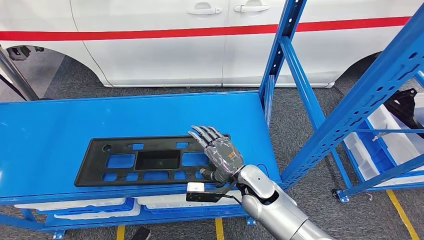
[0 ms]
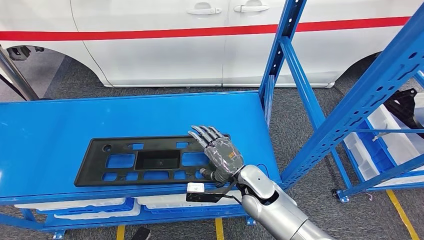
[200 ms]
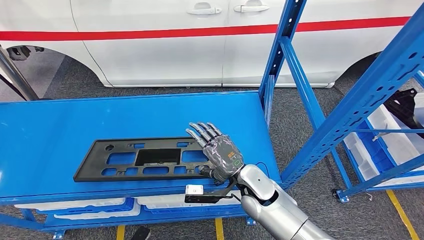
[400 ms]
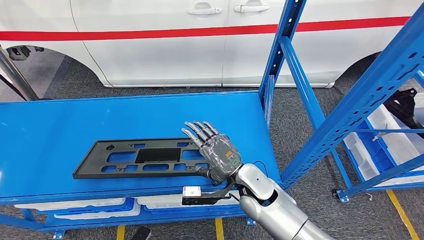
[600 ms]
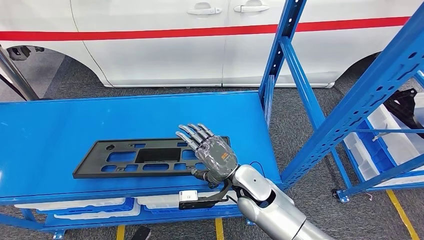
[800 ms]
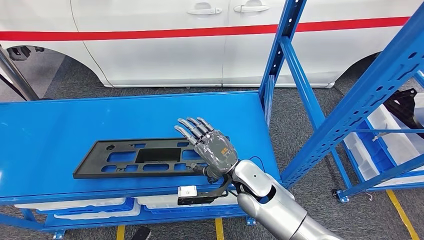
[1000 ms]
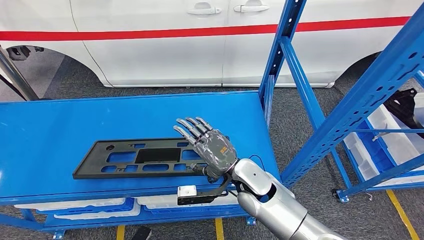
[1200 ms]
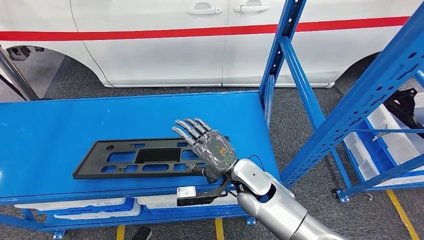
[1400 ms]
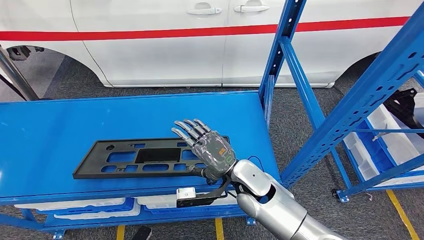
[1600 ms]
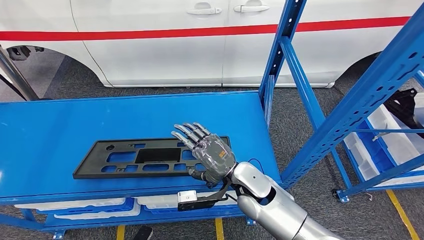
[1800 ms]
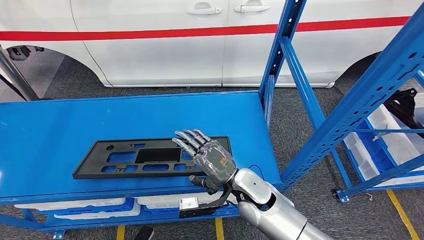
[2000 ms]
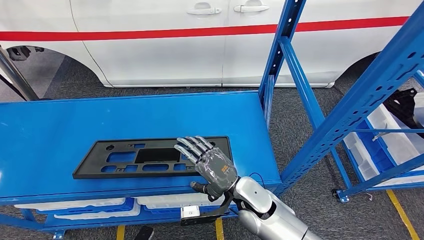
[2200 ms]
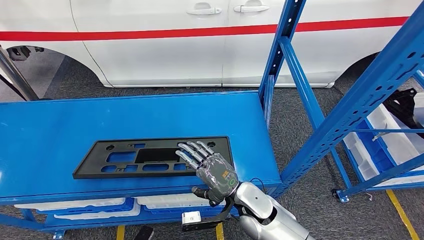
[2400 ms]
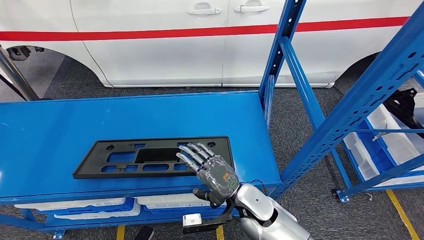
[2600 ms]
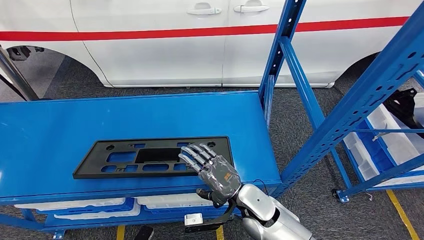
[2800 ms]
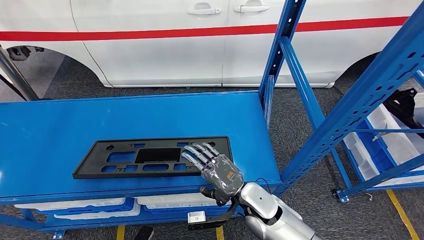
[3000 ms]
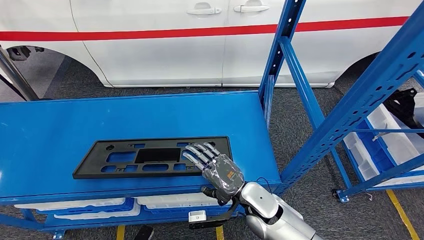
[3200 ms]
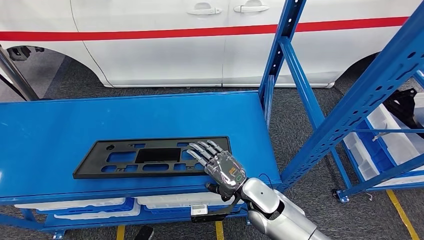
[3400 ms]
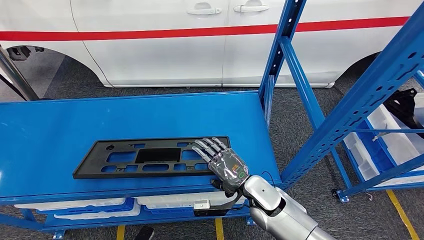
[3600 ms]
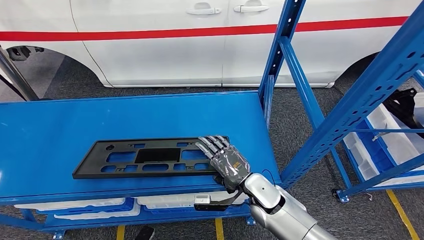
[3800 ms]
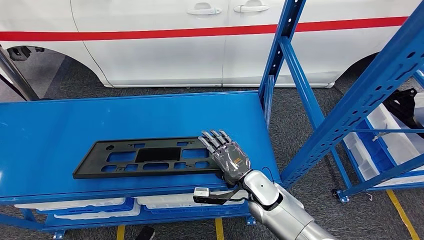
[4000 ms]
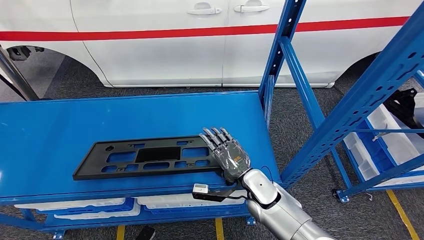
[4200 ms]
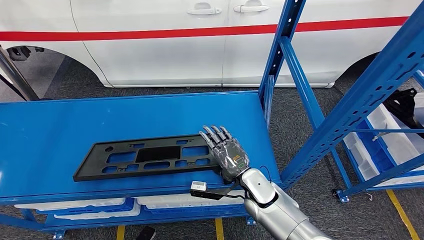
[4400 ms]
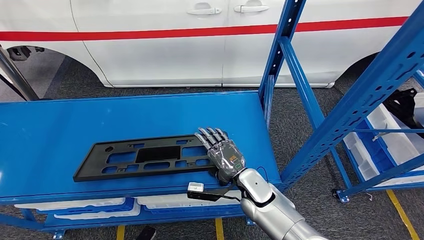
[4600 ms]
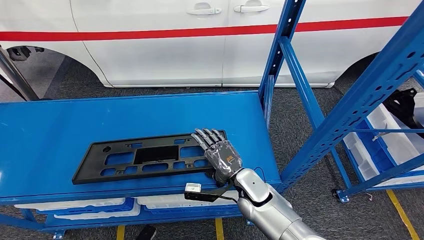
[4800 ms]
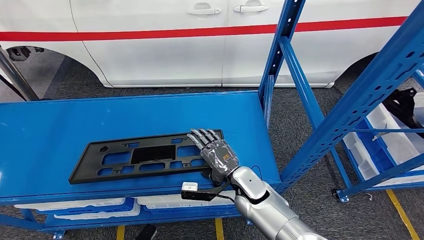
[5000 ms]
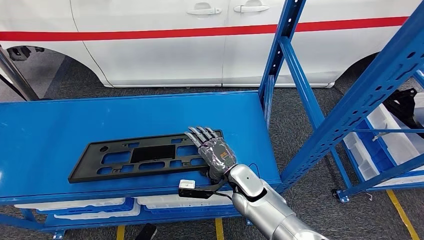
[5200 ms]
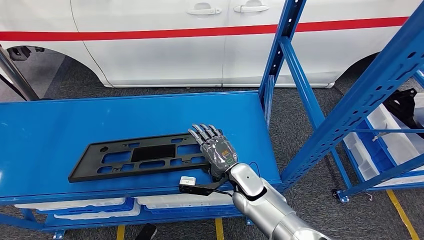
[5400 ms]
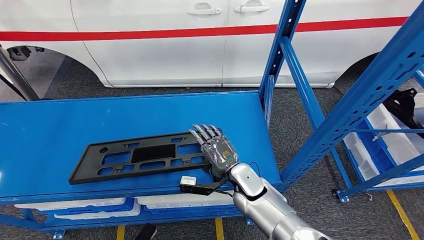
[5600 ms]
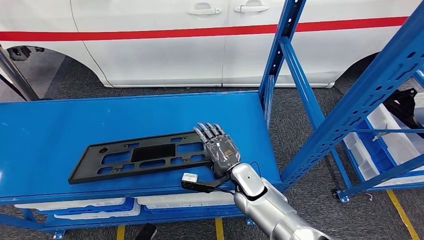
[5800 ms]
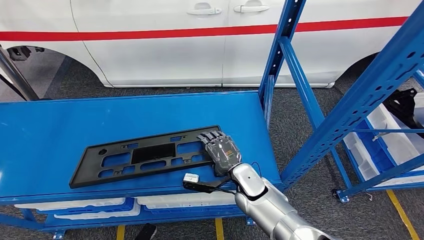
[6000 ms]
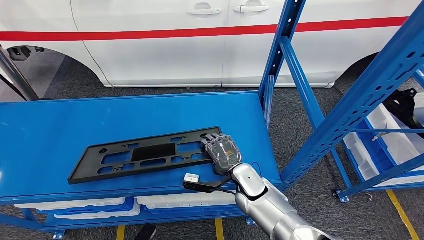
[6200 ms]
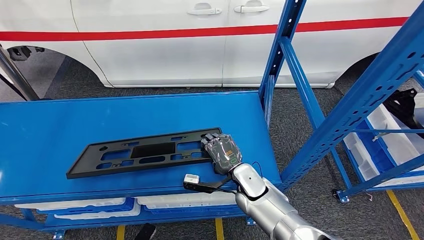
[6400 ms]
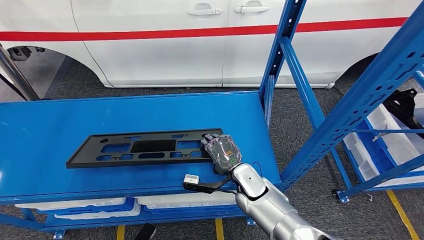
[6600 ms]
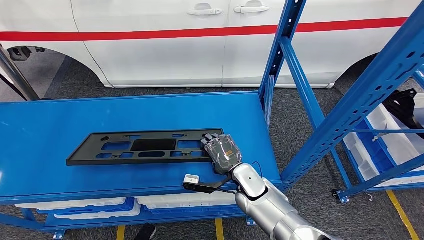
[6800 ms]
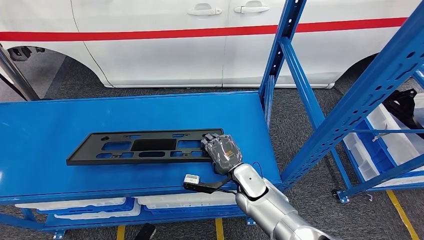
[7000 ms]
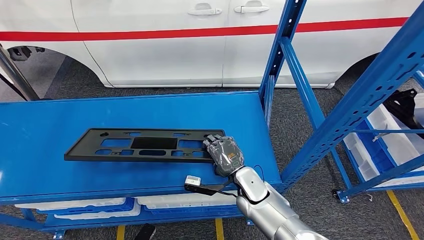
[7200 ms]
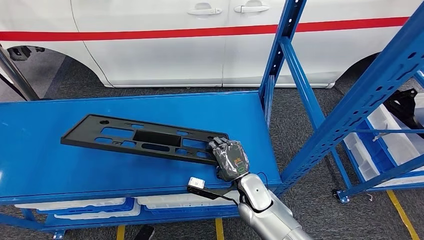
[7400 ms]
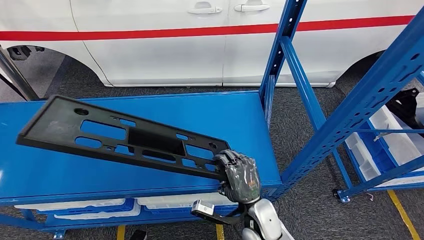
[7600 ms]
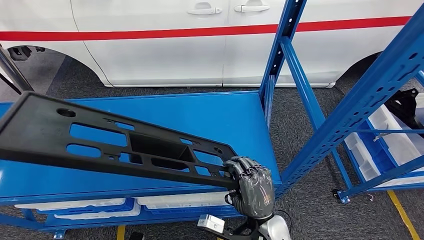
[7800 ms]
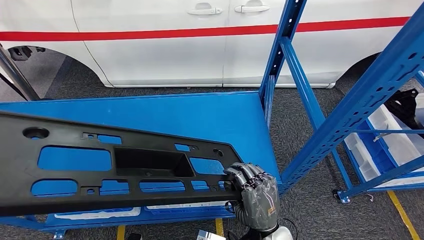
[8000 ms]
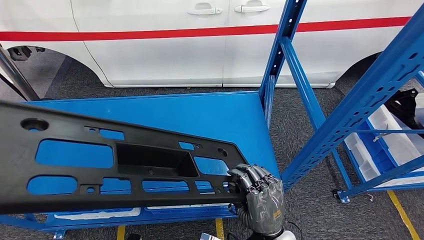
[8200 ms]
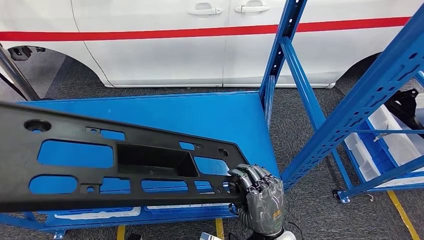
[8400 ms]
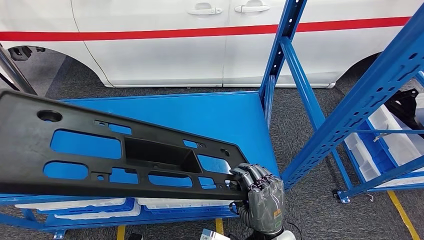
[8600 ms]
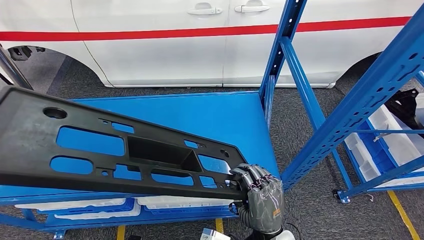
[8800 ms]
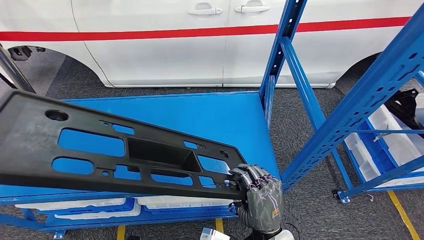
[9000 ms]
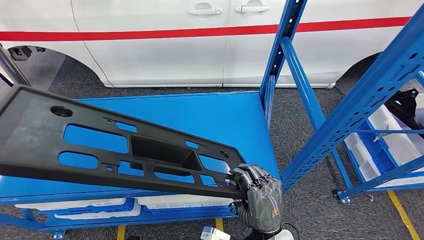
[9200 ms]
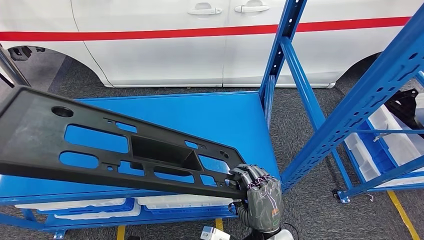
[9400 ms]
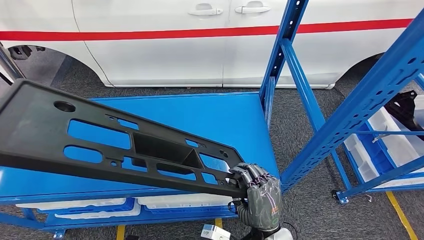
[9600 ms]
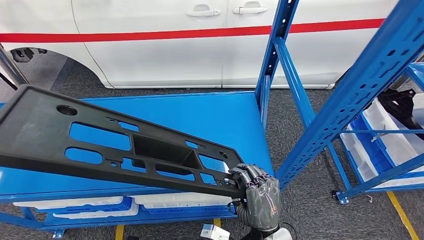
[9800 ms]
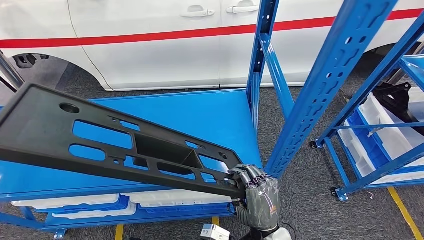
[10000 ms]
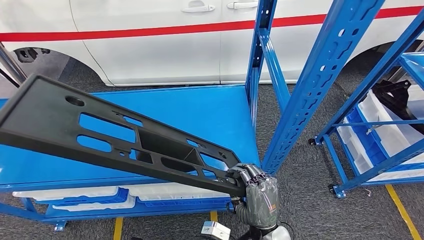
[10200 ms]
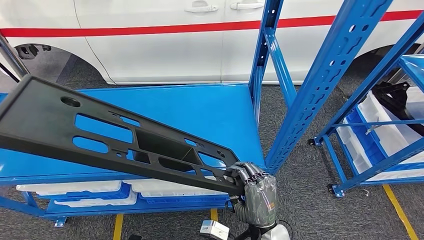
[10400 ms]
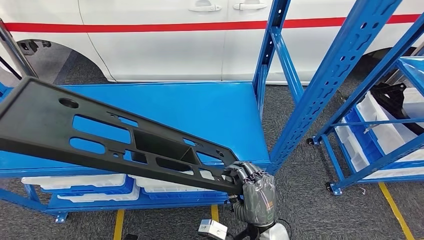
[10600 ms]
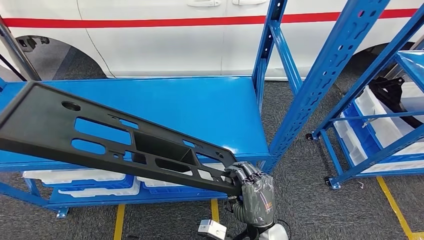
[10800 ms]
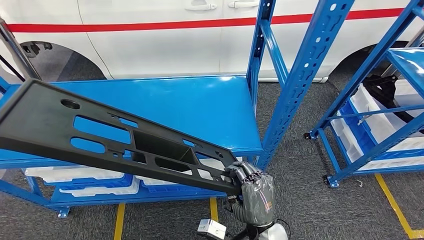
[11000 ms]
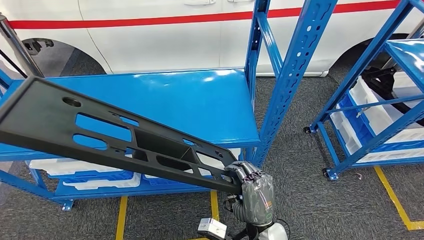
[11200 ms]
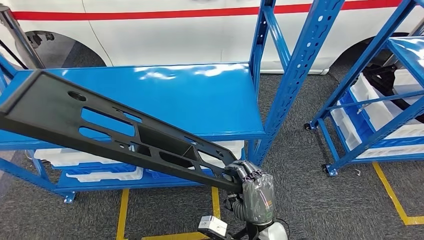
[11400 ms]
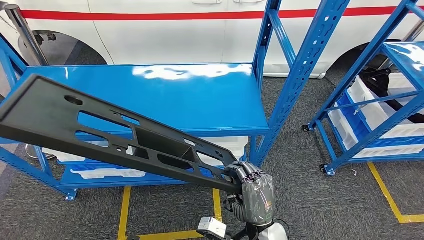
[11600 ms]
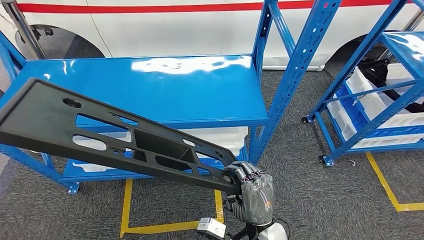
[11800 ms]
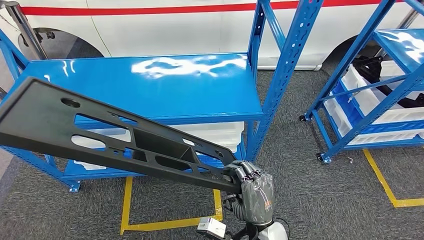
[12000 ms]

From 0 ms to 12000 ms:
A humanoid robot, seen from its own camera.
Step, from 0 ms to 8000 ms: Pick up the large parts from the shelf.
From 0 ms to 1600 ms: The hands move only a little.
From 1600 ms to 3000 ms: The right hand goes roughly 5 cm downward.
From 3000 ms to 4400 ms: The hands make only small movements.
From 4400 ms to 6000 ms: The hands move only a little.
From 6000 ms to 7600 ms: The right hand travels backward by roughly 10 cm.

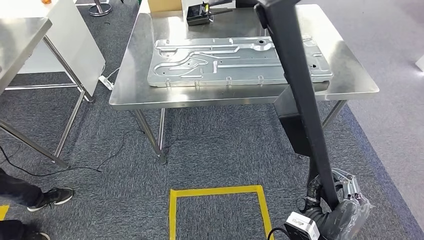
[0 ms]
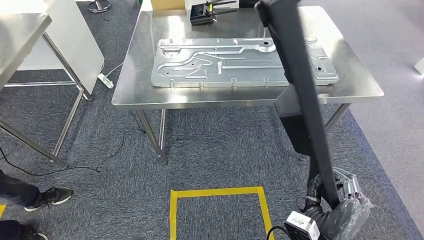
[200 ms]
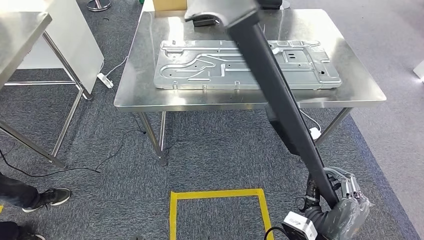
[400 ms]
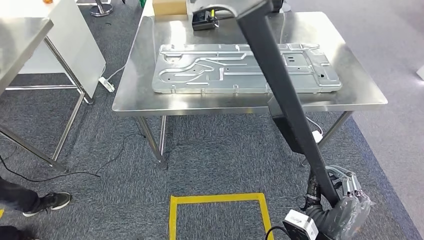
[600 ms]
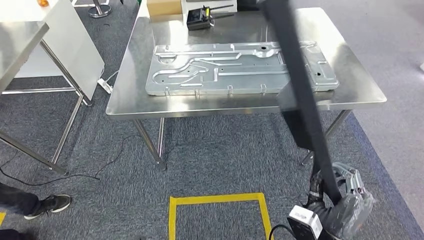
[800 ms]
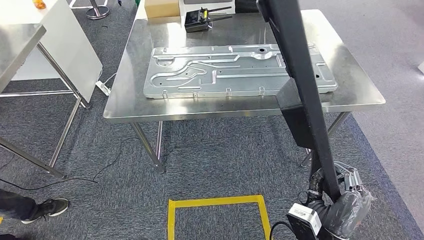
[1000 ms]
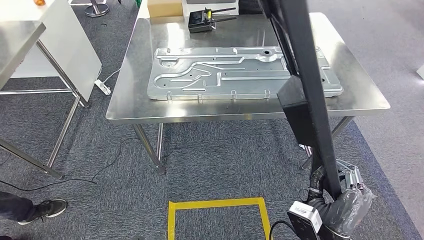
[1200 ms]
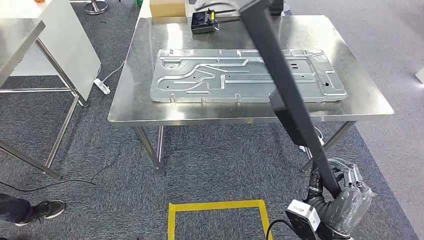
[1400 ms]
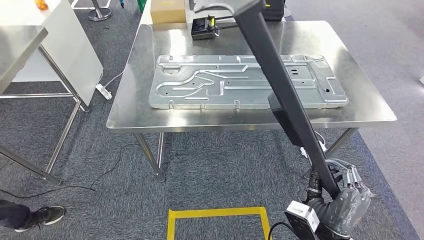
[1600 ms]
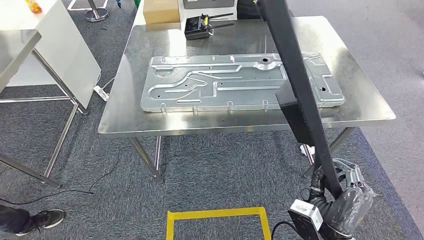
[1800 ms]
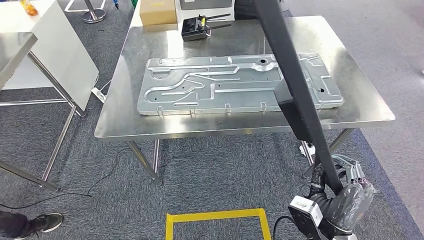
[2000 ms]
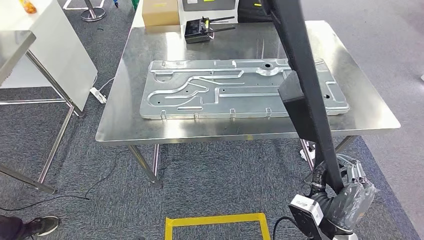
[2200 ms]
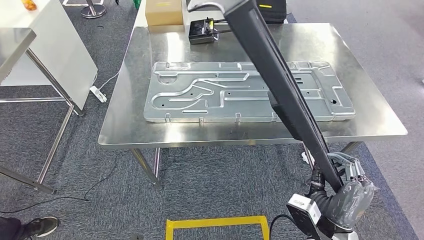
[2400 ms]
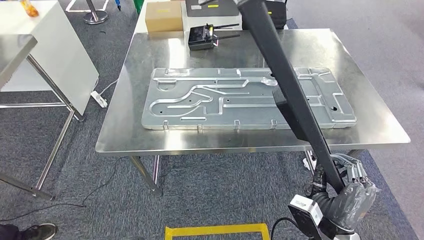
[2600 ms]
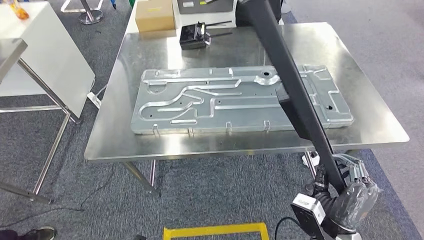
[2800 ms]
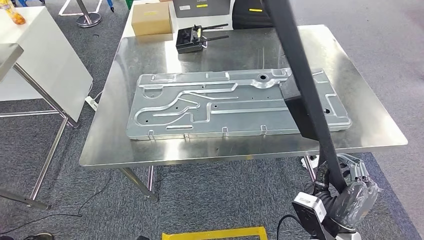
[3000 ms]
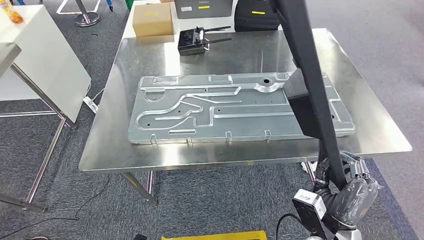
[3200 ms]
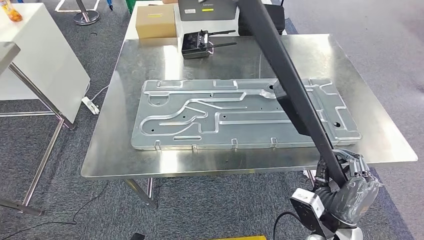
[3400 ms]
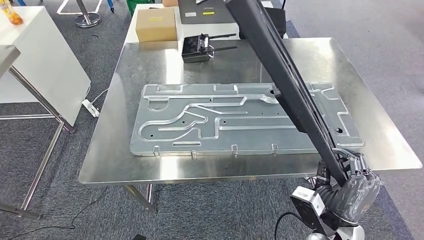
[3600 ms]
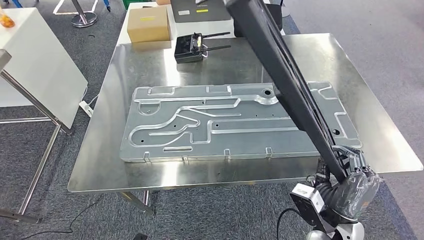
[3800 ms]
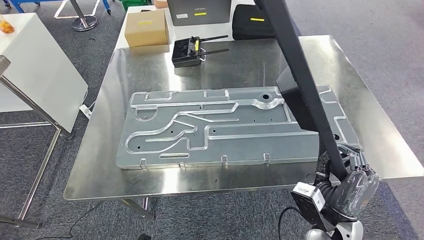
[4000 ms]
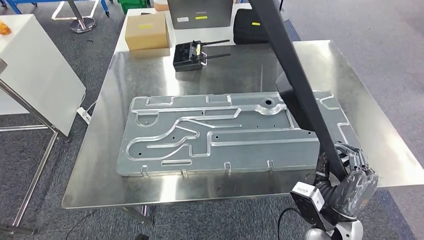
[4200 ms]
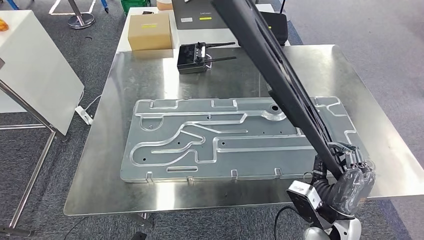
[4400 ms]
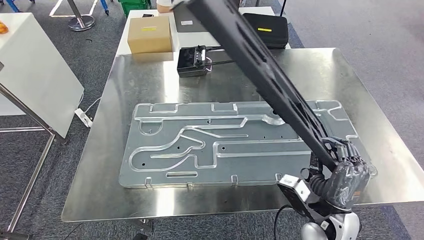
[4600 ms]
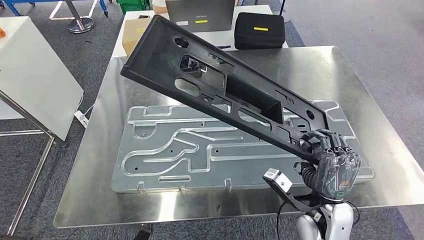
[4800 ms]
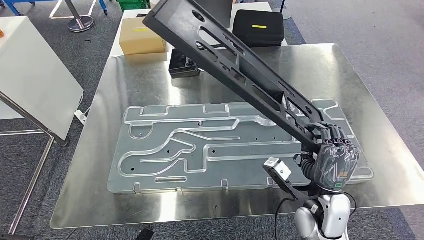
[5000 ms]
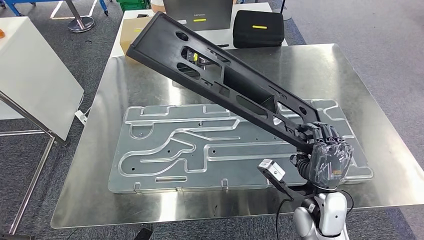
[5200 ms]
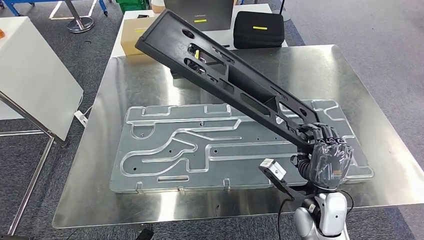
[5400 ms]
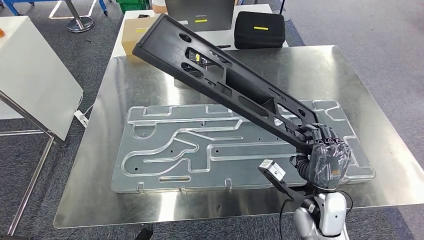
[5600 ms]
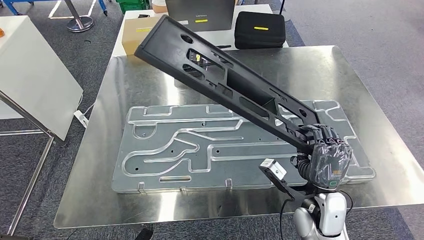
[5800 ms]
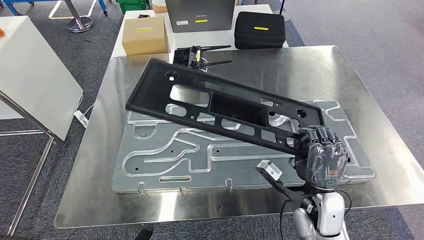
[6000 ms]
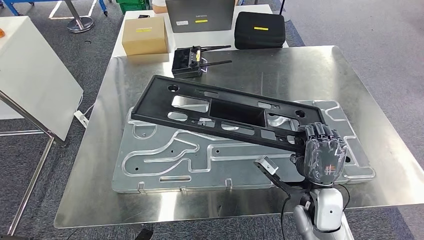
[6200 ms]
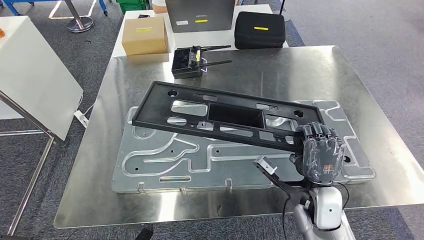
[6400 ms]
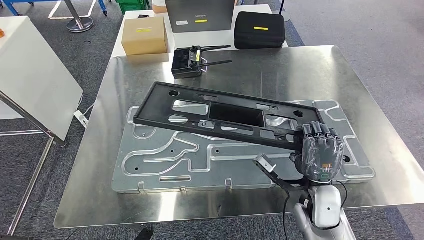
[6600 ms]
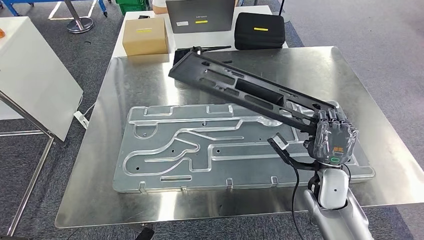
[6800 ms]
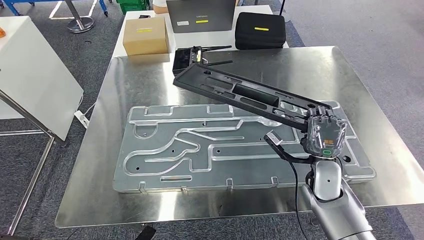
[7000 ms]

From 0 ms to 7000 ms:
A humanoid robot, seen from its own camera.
From 5600 ms to 7000 ms: The right hand shifts about 10 cm forward.
